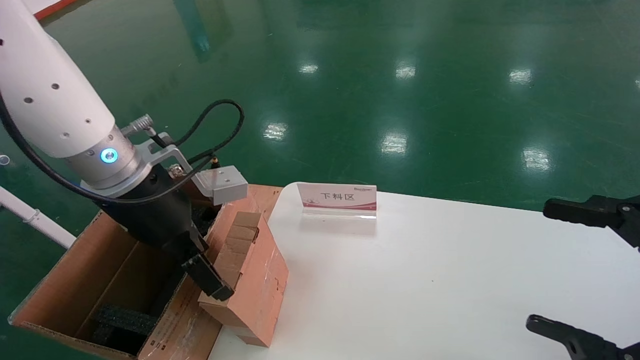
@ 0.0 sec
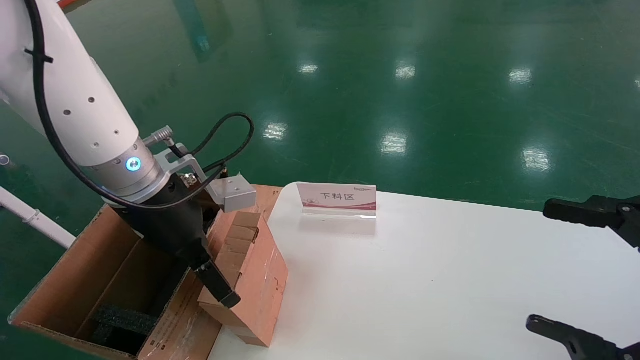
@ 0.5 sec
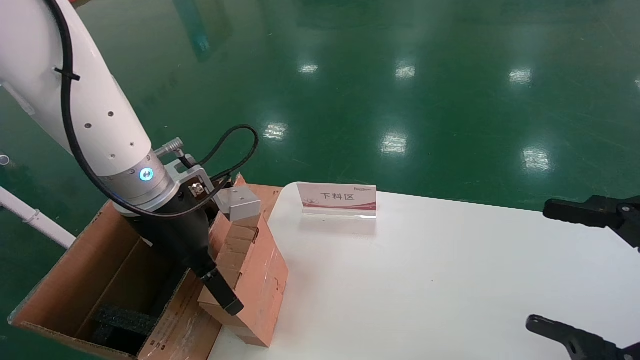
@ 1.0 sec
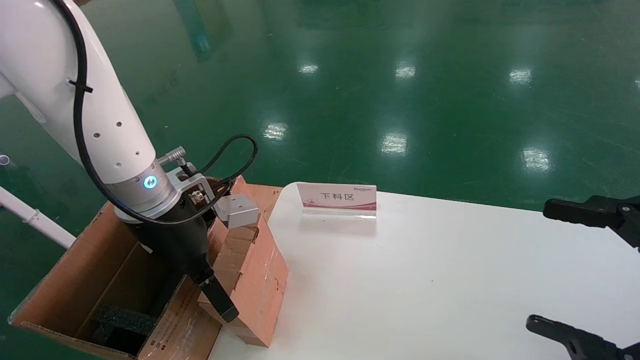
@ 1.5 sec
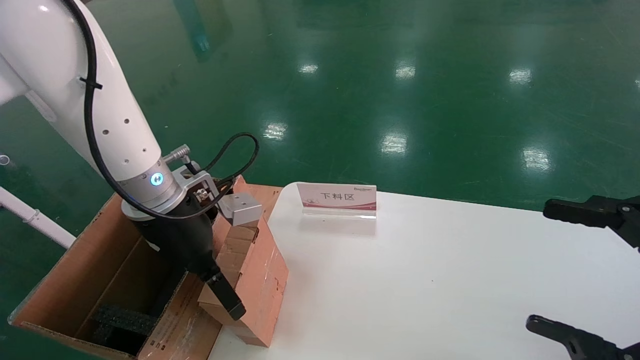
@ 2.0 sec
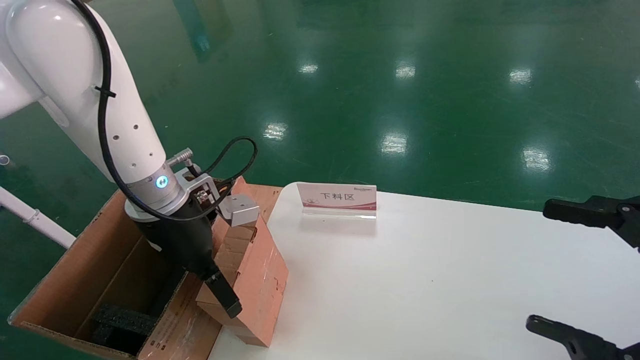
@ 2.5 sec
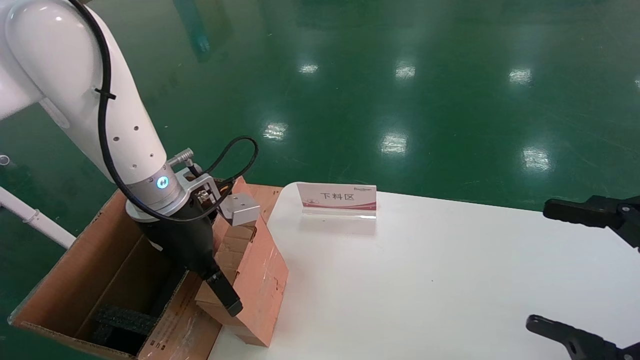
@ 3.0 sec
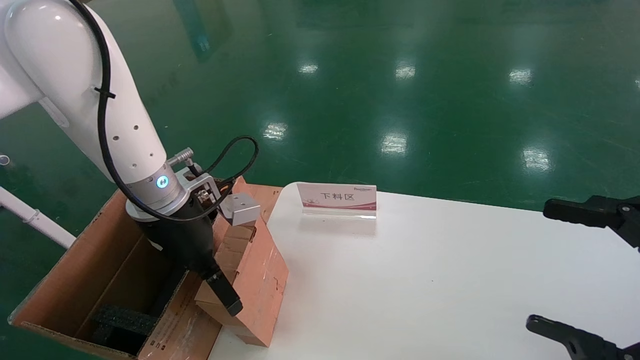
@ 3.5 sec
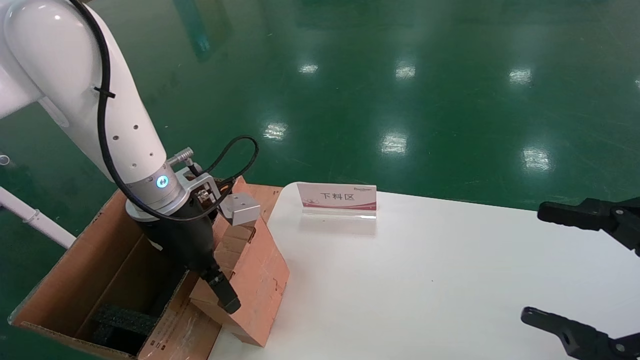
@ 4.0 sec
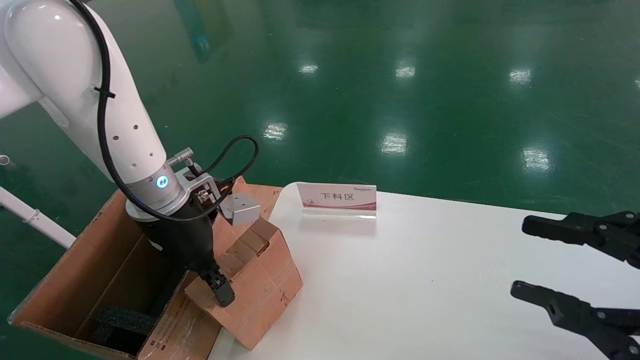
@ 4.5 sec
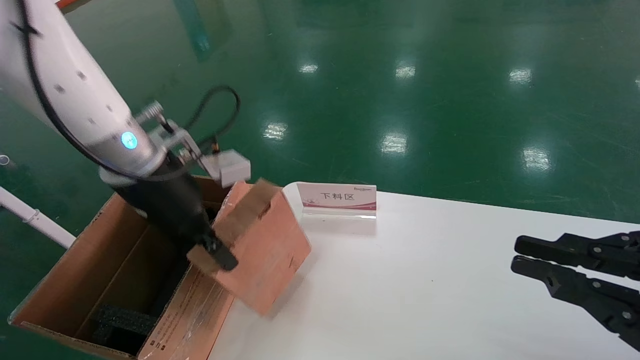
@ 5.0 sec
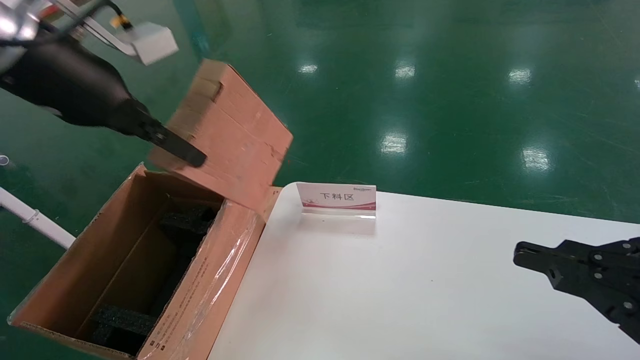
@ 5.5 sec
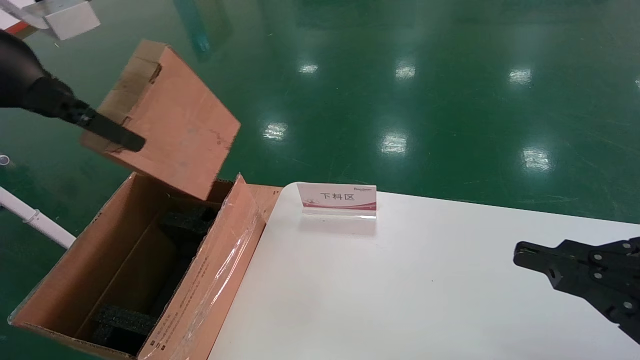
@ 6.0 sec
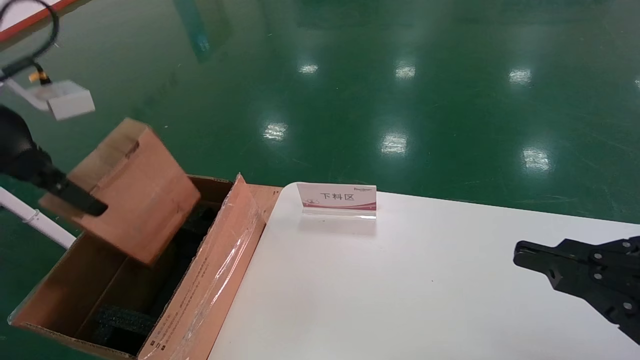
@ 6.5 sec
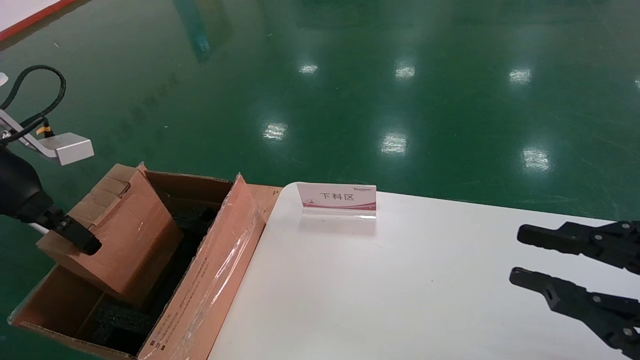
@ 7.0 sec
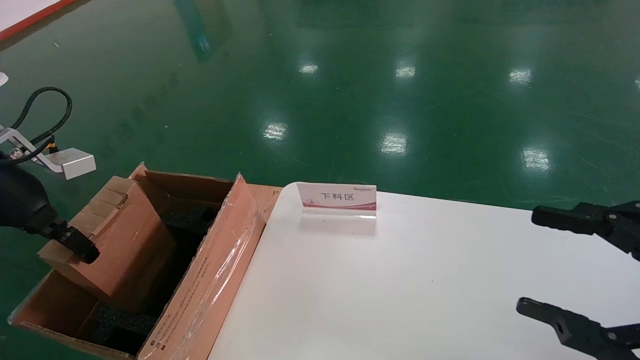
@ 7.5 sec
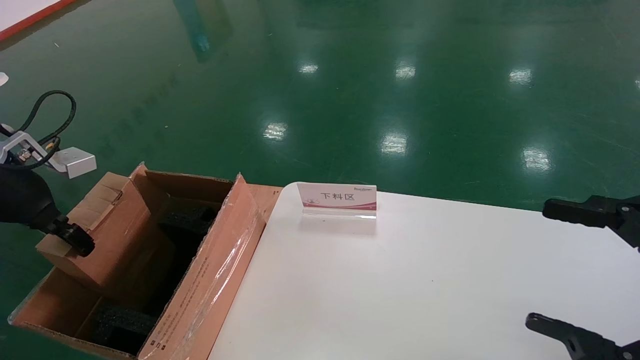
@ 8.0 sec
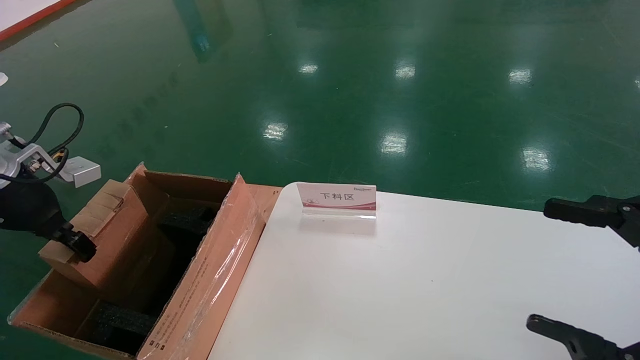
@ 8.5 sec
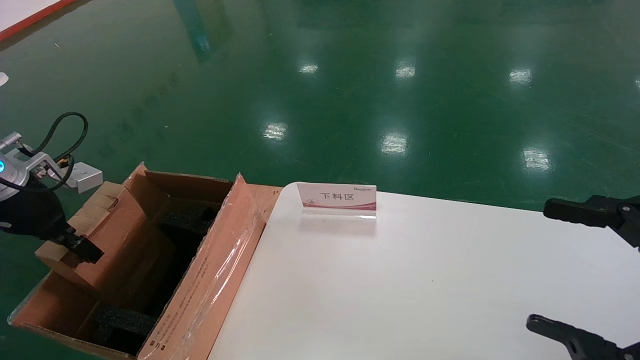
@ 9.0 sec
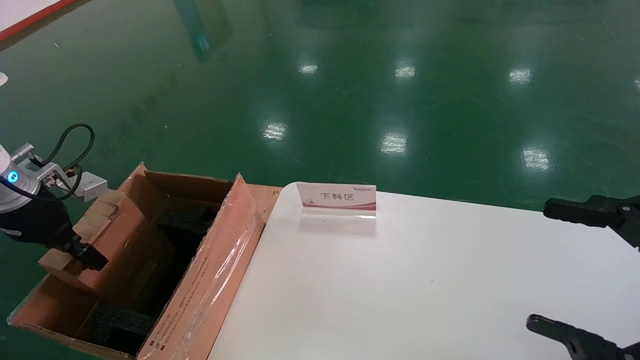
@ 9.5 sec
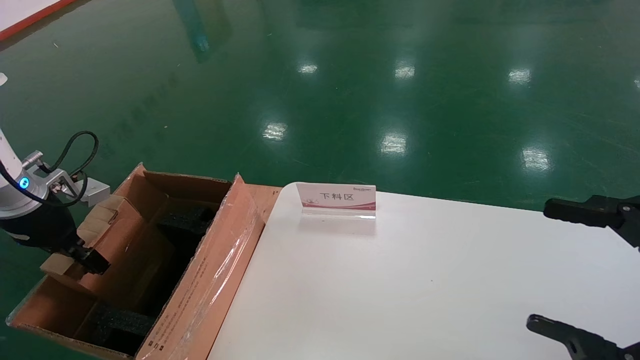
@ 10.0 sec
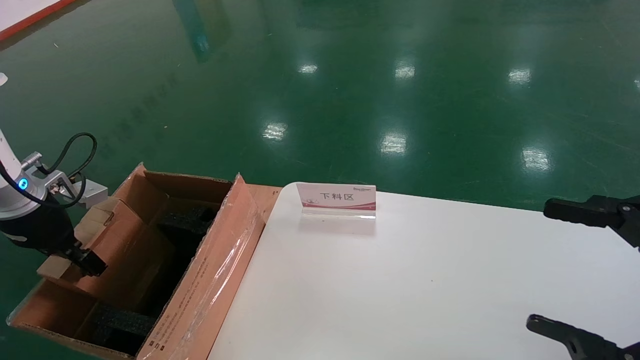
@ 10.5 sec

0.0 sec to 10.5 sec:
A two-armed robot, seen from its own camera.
Task of the whole recording: pick up the small cardboard box and load it into the large cardboard box.
Step, 0.0 sec to 4.5 sec: Pick up the mouse and power cord box.
0.0 sec to 2.0 sec: The grippers stay close to where they were, moving slightly.
2.0 sec to 4.0 sec: Both grippers stay about where they are.
4.0 sec to 6.5 sec: The right gripper closes up, while the left gripper goes some 25 cm to the left, upward and backward, and closes its fingers.
6.5 sec to 8.5 sec: The left gripper shifts approximately 15 cm downward and to the left. Meanwhile the right gripper opens up.
8.5 sec to 10.5 sec: The left gripper shifts by some 5 cm.

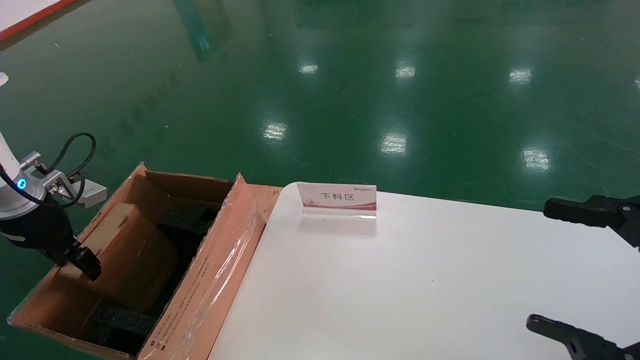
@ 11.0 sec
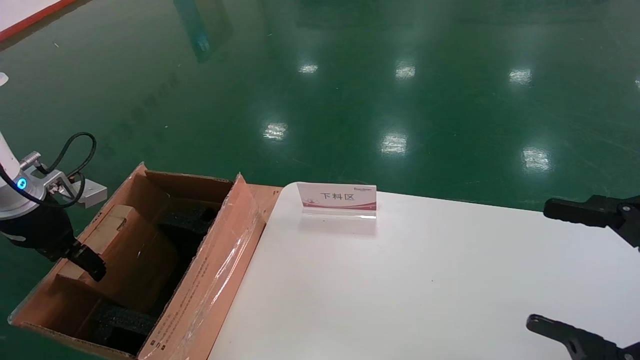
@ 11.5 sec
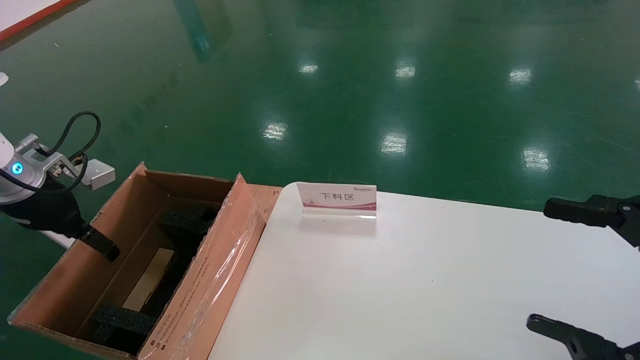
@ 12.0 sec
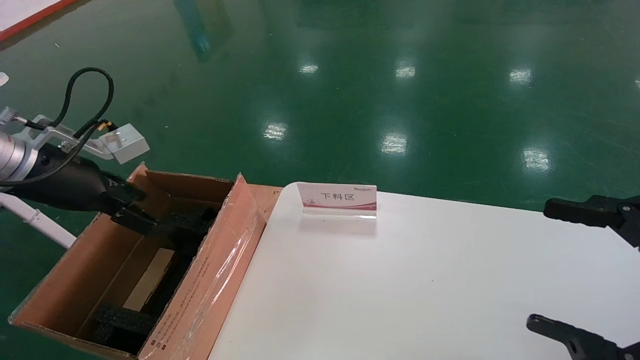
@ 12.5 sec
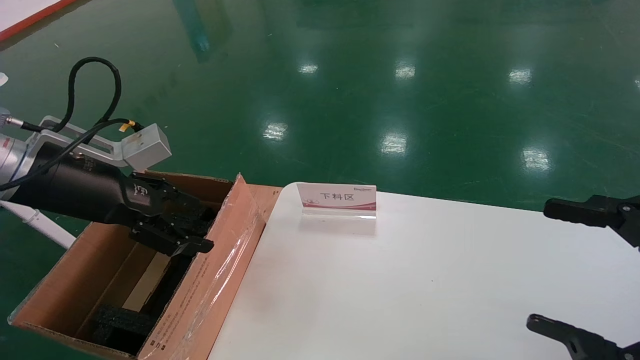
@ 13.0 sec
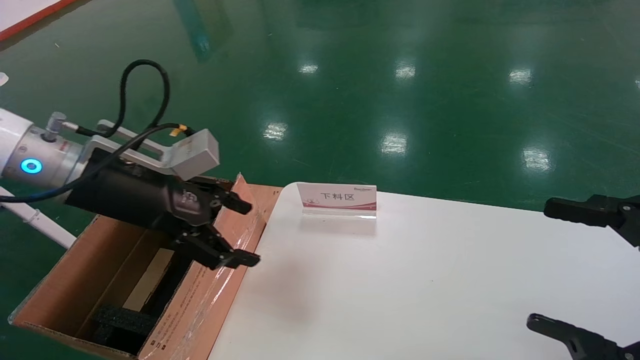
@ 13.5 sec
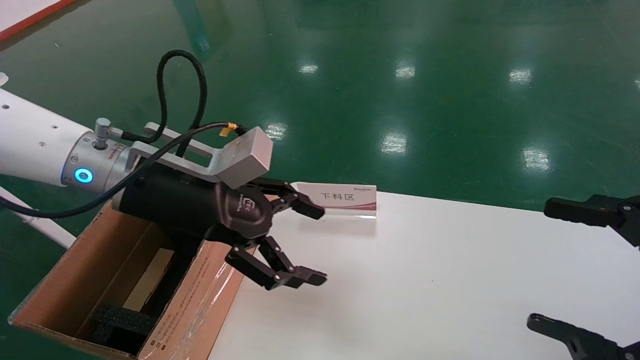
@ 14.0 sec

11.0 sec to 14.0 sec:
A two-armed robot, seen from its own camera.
Task of the whole recording: pick up the small cardboard box and load it into the large cardboard box.
11.0 sec to 12.5 sec: The left gripper heads to the right and upward, covering about 10 cm, and opens.
12.5 sec to 14.0 sec: The left gripper is displaced to the right by some 20 cm.

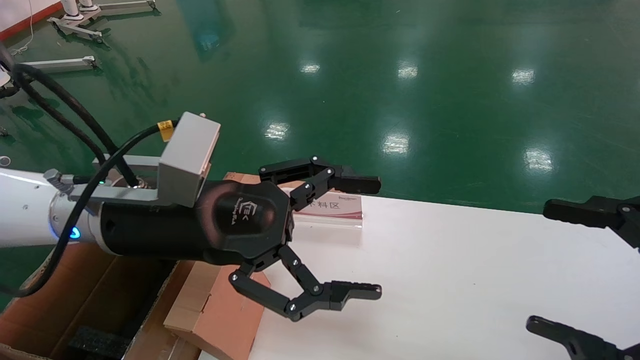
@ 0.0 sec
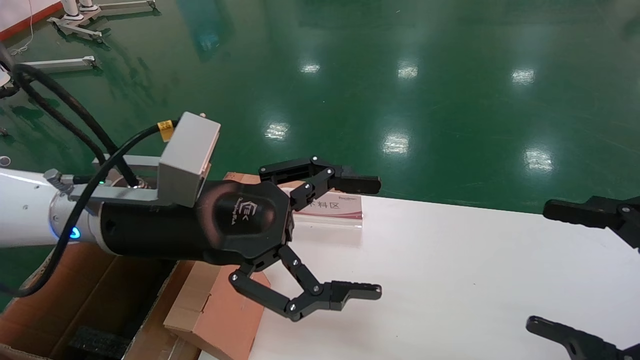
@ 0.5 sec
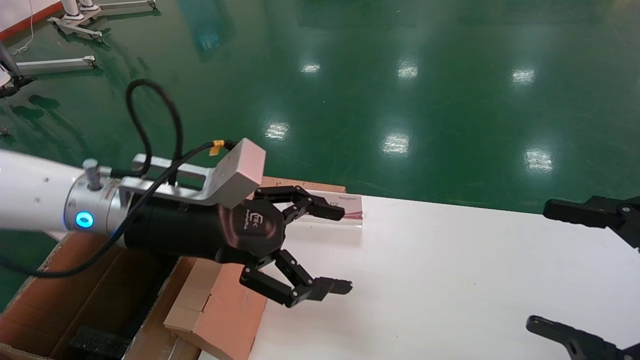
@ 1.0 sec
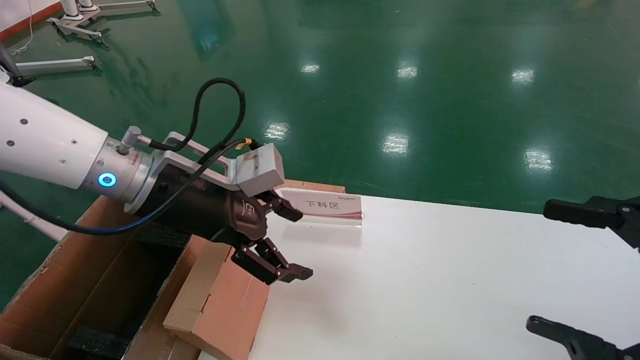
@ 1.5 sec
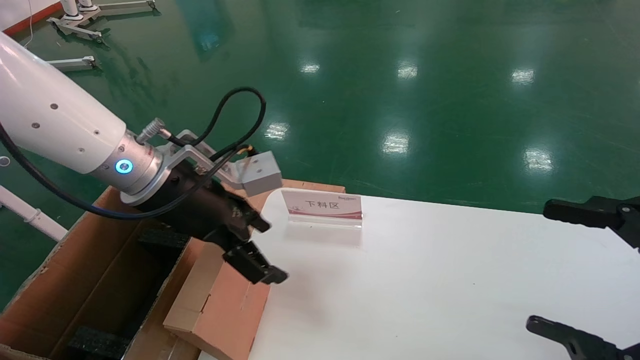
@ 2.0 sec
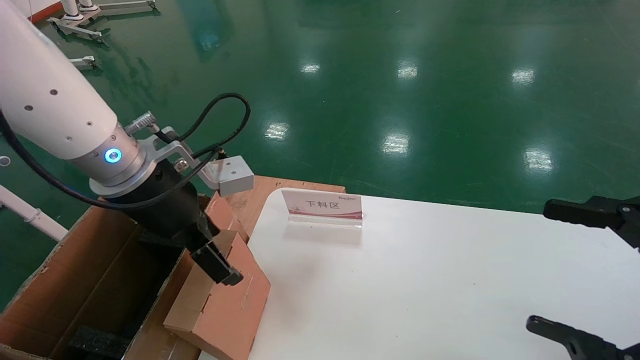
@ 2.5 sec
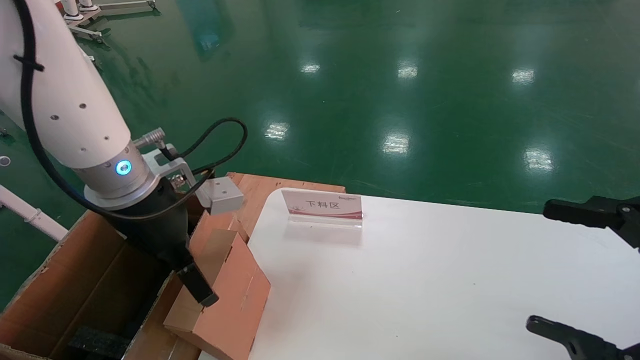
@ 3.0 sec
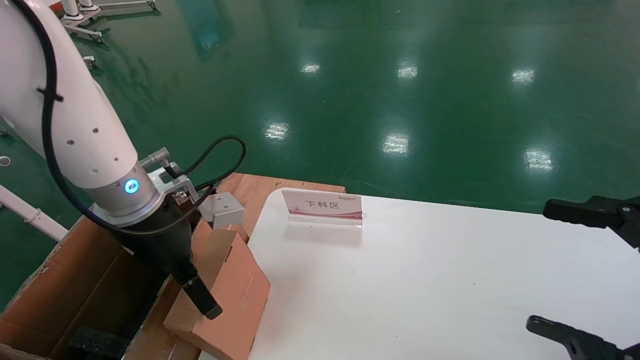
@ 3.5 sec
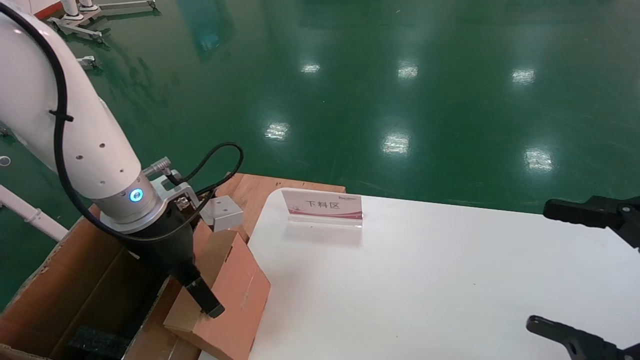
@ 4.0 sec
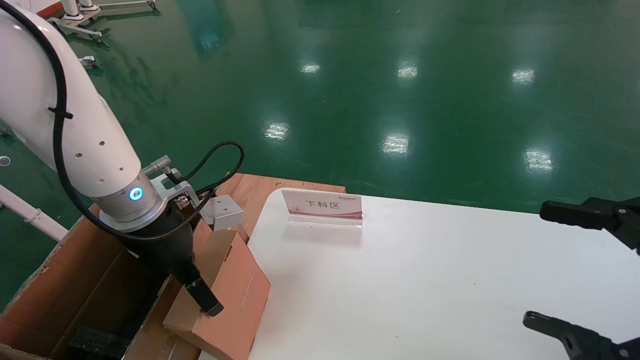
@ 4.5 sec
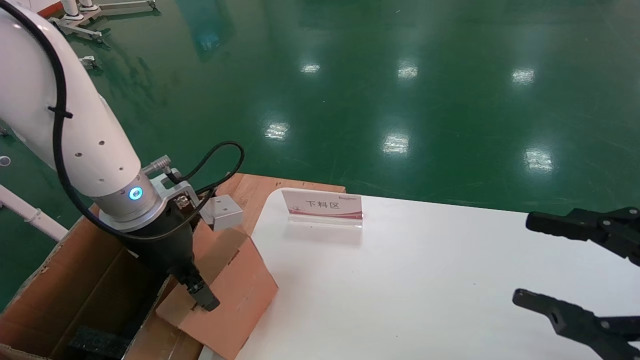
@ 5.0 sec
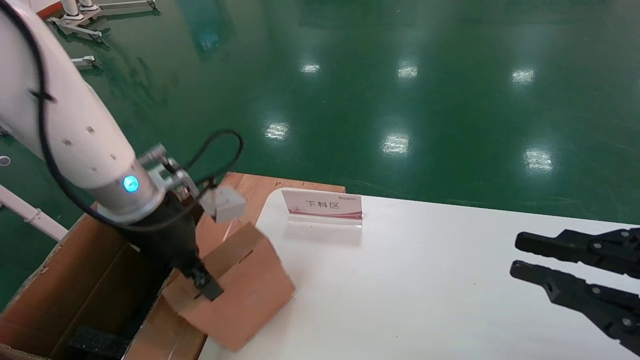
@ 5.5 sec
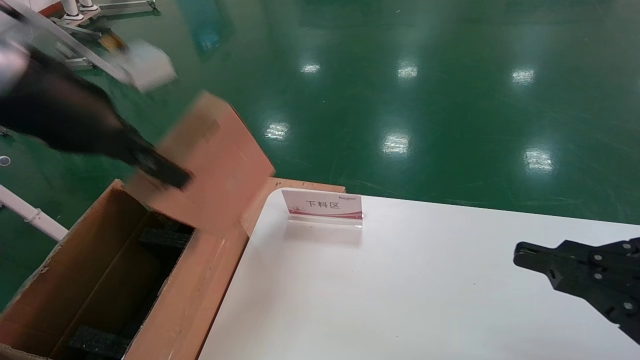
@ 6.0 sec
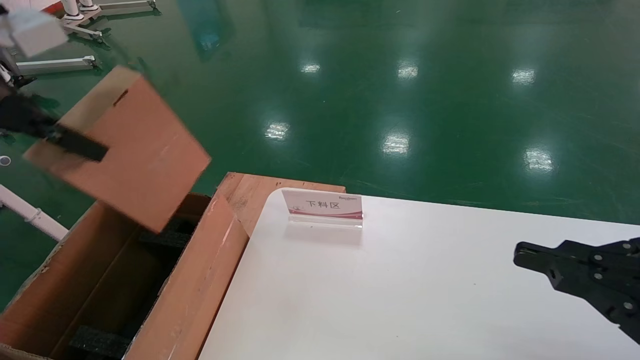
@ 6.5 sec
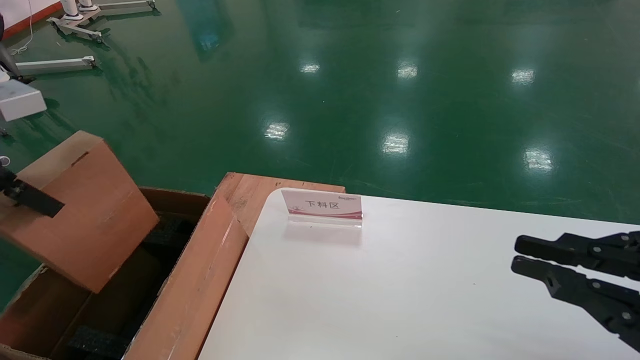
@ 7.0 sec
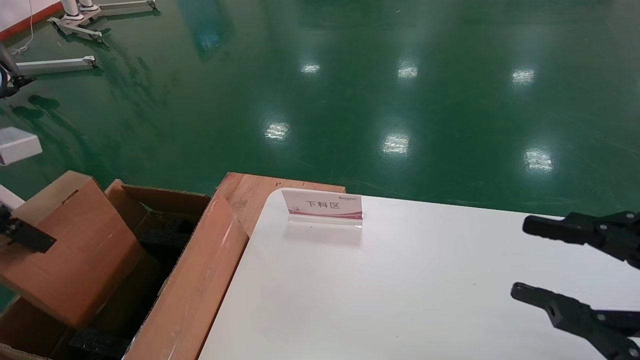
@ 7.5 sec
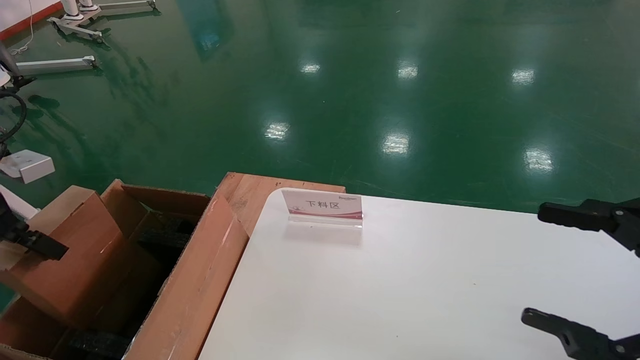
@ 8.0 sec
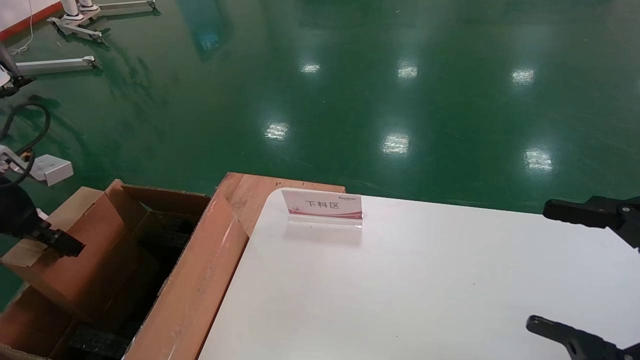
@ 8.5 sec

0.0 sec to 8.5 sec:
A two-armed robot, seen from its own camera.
Task of the whole recording: pick up the small cardboard box and load it into the large cardboard box.
Step, 1.0 sec to 5.5 sec: Pick up the mouse and power cord box.
0.0 sec to 2.0 sec: The left gripper is displaced forward by approximately 5 cm.
4.0 sec to 6.5 sec: The left gripper shifts some 25 cm upward, to the left and backward, and closes its fingers, while the right gripper closes up.
6.5 sec to 8.5 sec: The right gripper opens up; the left gripper heads downward and to the left, covering about 20 cm.
